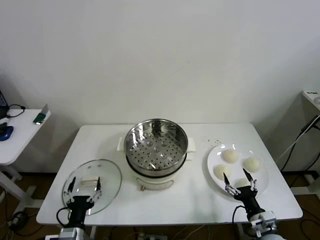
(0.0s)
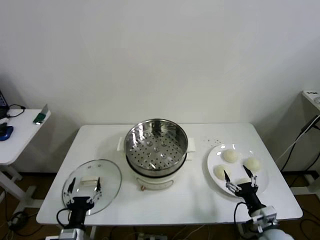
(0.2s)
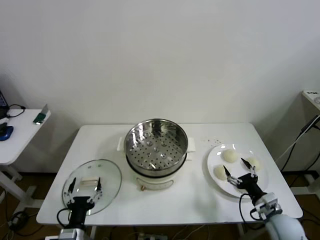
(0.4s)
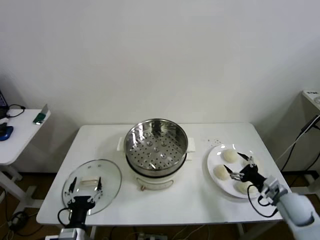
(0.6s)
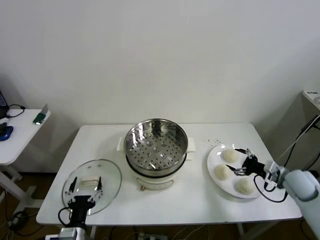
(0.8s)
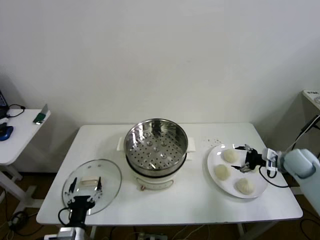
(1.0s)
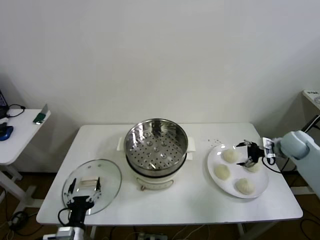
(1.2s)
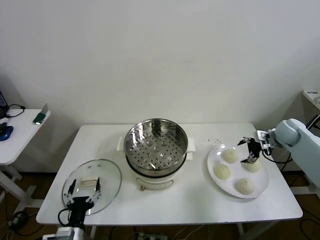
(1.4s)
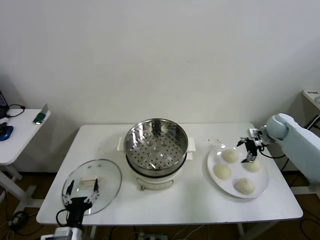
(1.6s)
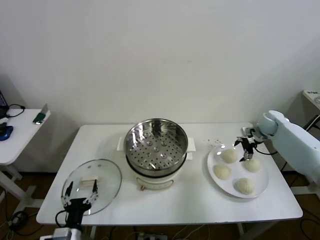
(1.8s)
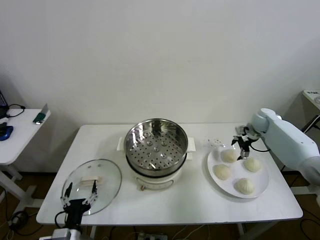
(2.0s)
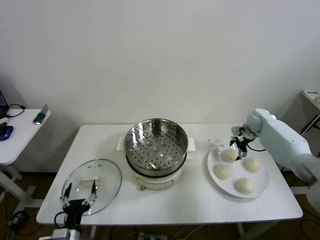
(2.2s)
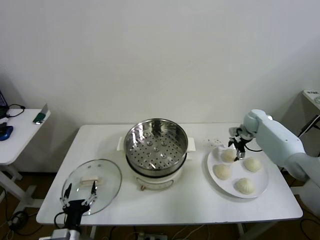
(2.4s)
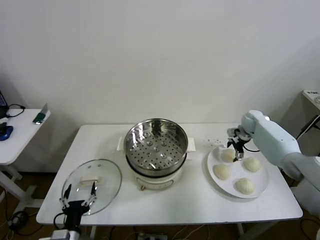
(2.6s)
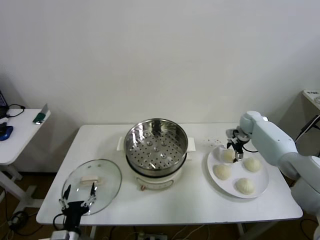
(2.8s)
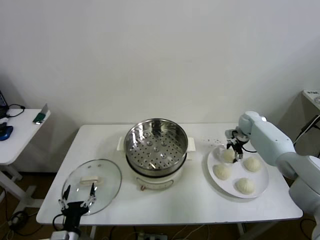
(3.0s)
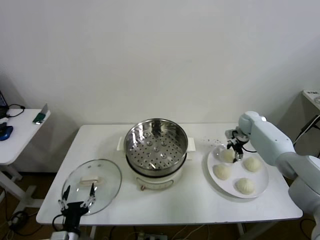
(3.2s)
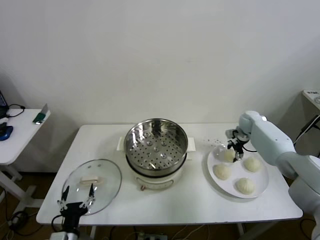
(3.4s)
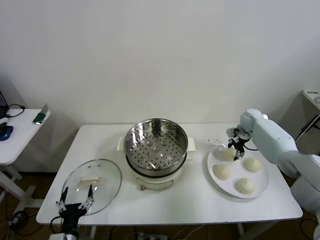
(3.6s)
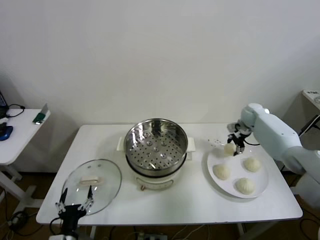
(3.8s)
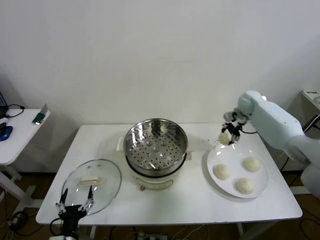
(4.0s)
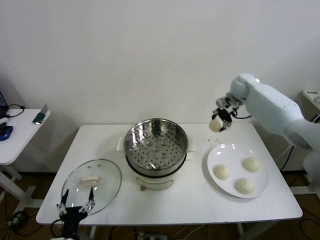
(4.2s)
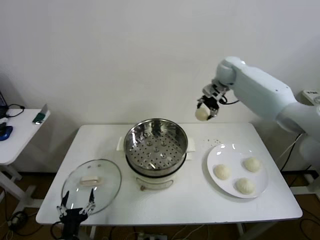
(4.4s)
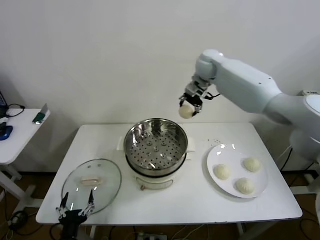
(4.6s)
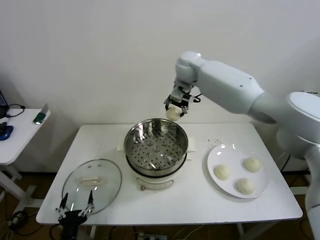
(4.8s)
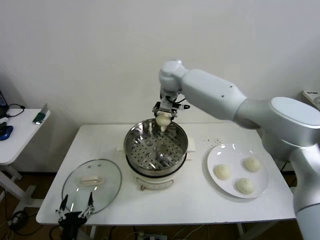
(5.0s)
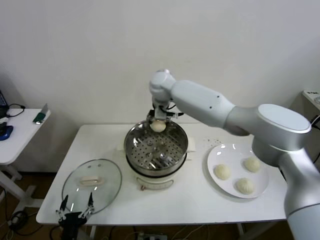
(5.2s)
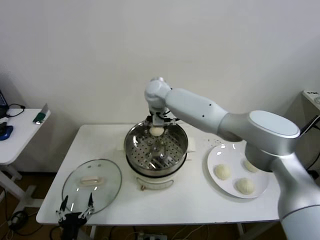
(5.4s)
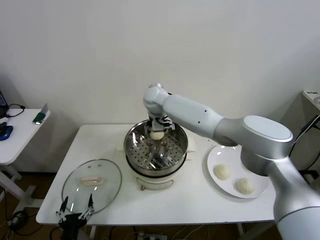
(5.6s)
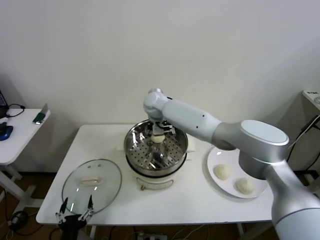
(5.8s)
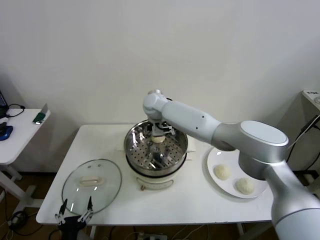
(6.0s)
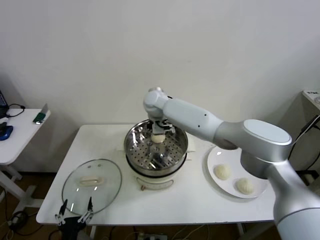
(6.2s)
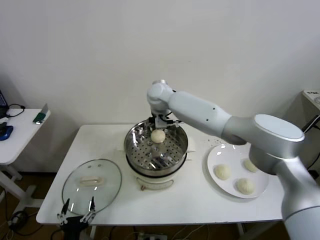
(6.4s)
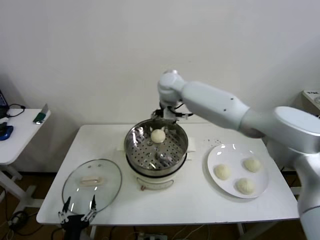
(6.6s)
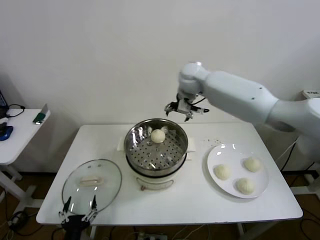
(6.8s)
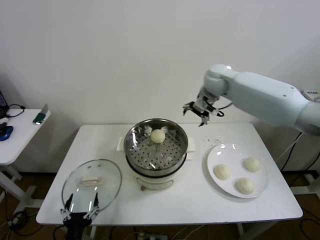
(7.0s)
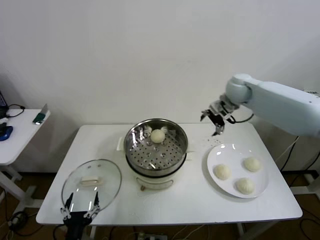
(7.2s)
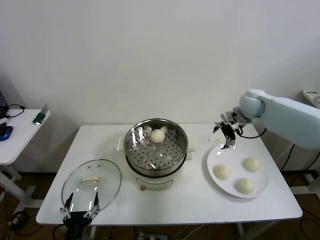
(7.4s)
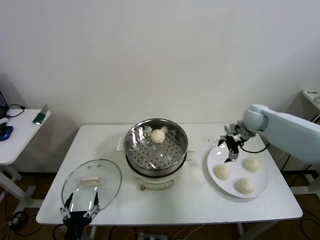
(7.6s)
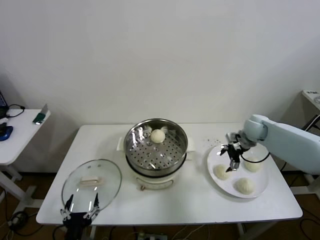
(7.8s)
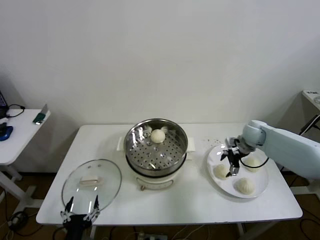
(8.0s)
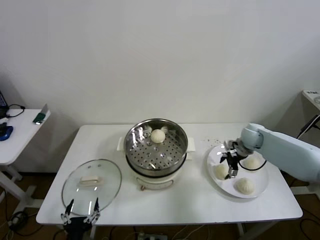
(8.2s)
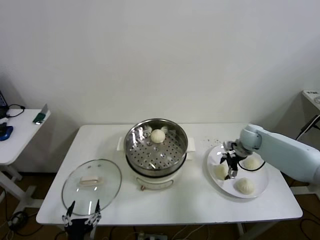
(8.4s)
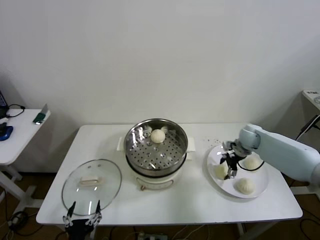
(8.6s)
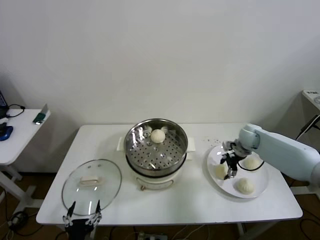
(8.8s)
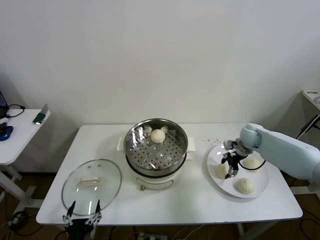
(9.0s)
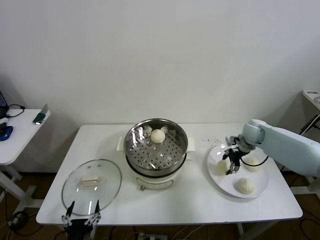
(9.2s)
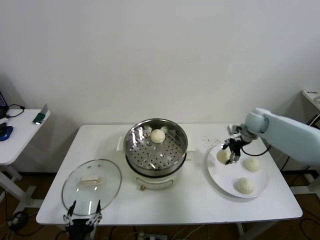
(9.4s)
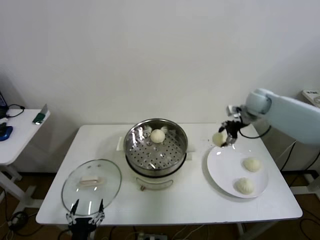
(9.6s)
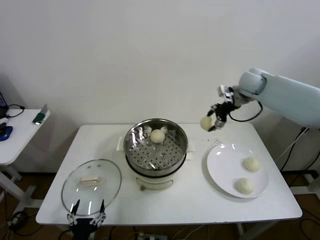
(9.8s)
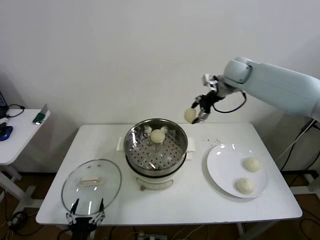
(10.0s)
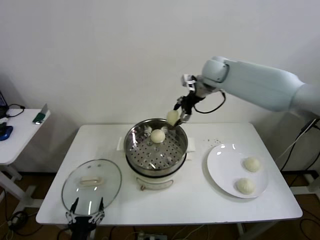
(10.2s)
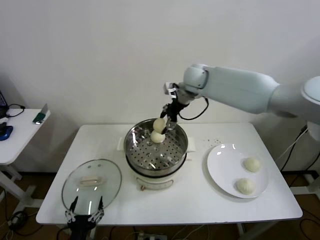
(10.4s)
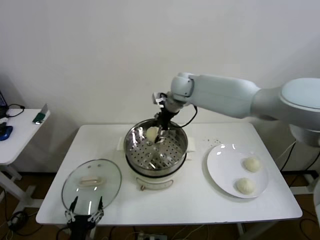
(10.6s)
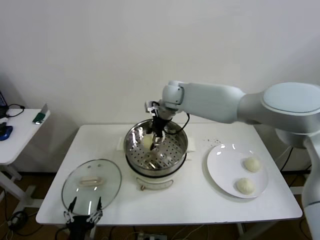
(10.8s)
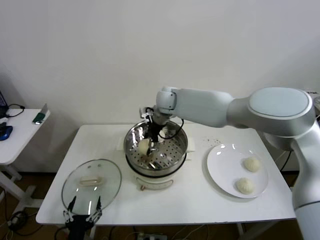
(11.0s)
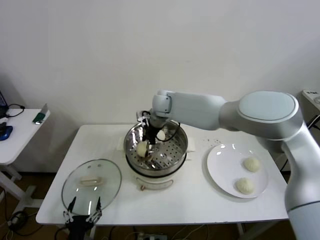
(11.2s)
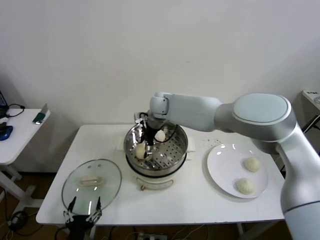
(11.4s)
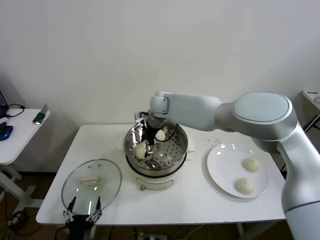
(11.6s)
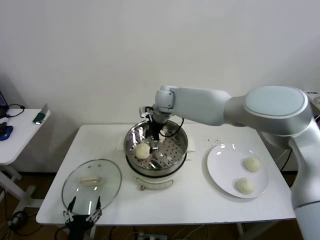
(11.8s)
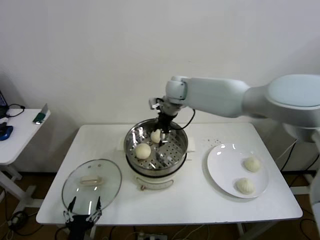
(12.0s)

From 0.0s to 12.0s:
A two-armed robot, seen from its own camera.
Step, from 0.0s to 3.2s: Grasp the baozi in the plate with right gripper.
Step, from 3.6s to 6.2s: Place the baozi on the steamer with right gripper.
Step, from 6.4s to 9.0s: Grasp the baozi in the plate with right gripper.
Step, from 9.2s to 11.8s: Place the baozi on the steamer with right gripper.
From 1.6s to 3.0s: The right gripper goes roughly 10 cm to the left and forward.
From 3.0s to 4.4s: The right gripper travels upward and to the left by some 30 cm, and closes up.
From 4.4s to 6.0s: The right gripper heads to the left and downward, covering approximately 25 cm, and opens its fingers.
From 6.0s to 7.6s: The right gripper goes approximately 40 cm to the right.
From 7.6s to 9.0s: The right gripper shifts about 5 cm downward, and closes its fingers.
From 9.0s to 10.4s: The right gripper is displaced to the left and upward by some 35 cm.
From 10.4s to 12.0s: The right gripper reaches approximately 10 cm to the left, then returns, and opens up.

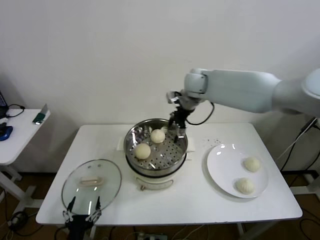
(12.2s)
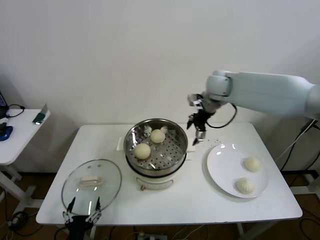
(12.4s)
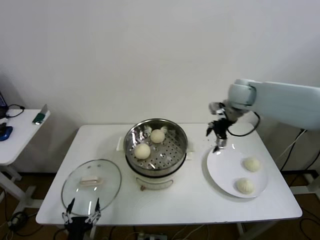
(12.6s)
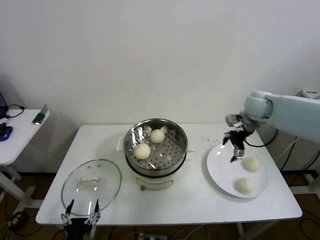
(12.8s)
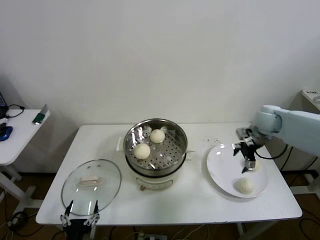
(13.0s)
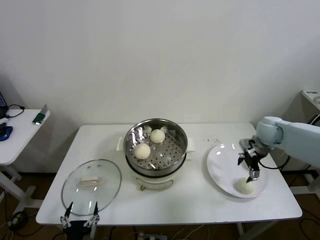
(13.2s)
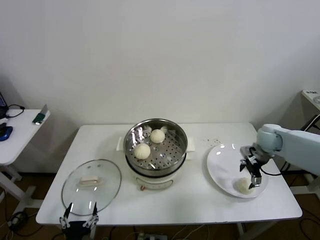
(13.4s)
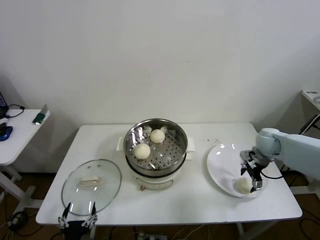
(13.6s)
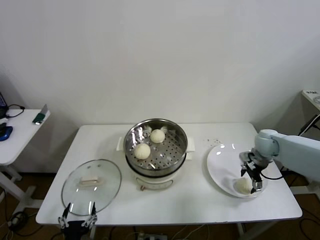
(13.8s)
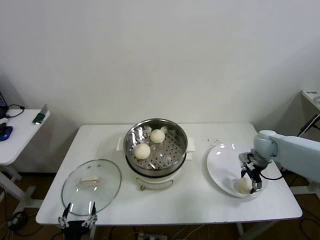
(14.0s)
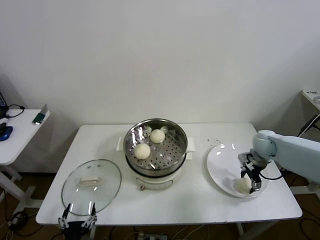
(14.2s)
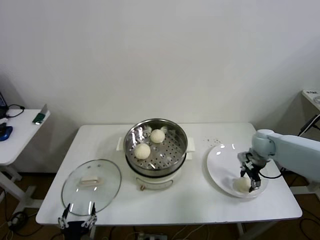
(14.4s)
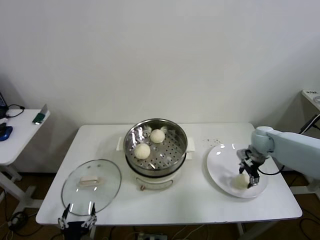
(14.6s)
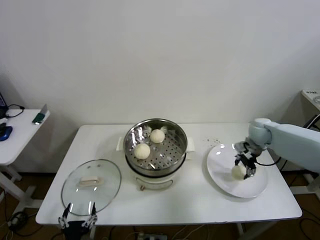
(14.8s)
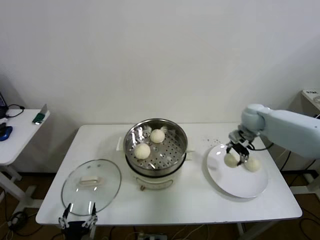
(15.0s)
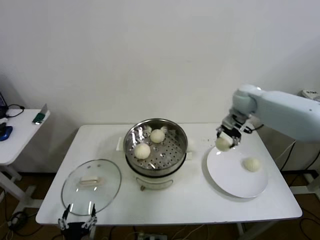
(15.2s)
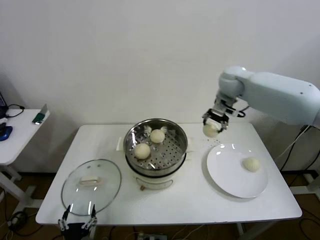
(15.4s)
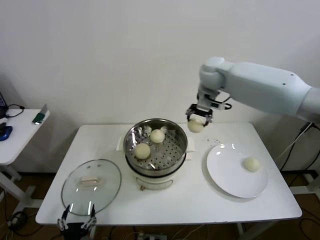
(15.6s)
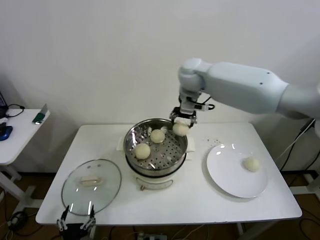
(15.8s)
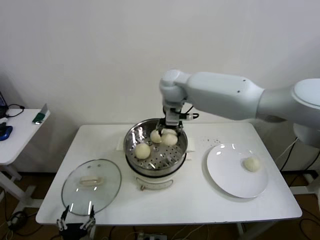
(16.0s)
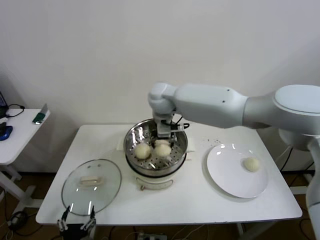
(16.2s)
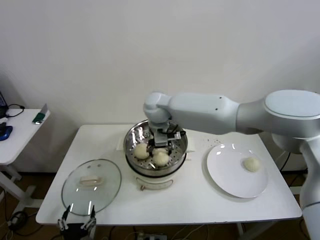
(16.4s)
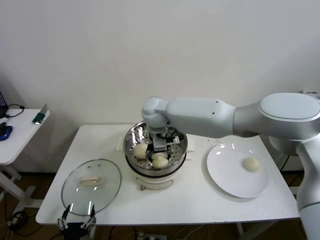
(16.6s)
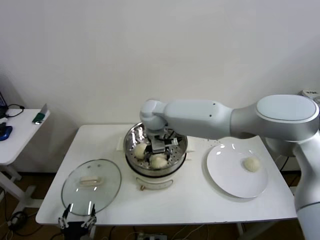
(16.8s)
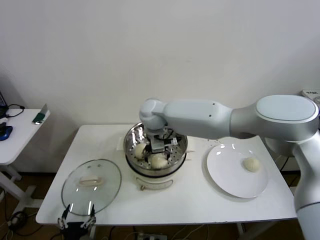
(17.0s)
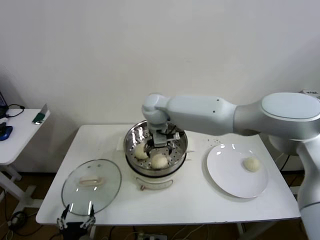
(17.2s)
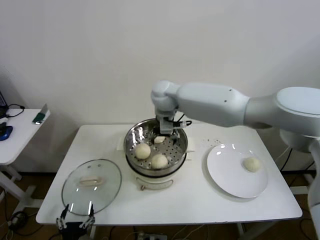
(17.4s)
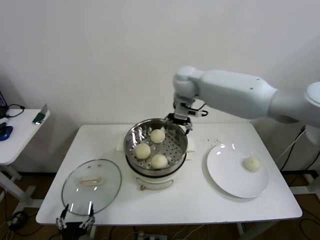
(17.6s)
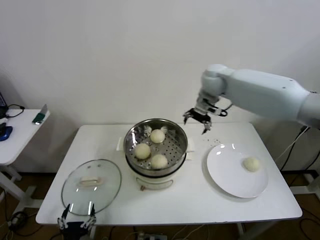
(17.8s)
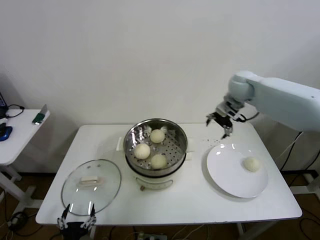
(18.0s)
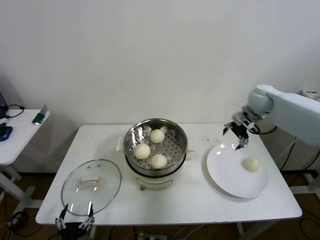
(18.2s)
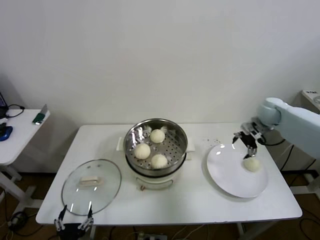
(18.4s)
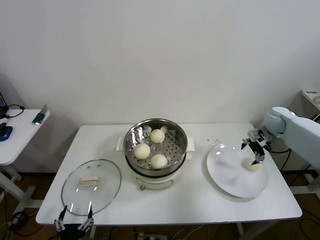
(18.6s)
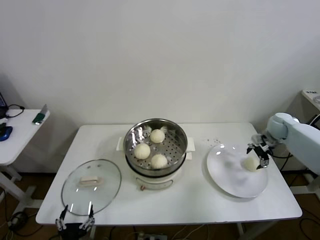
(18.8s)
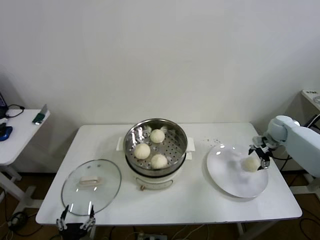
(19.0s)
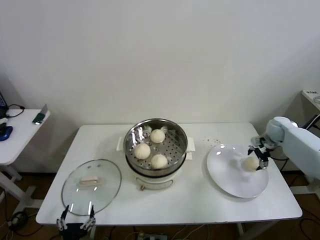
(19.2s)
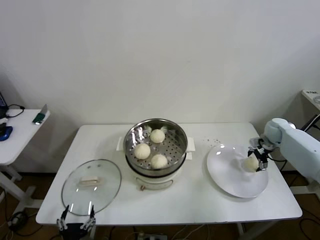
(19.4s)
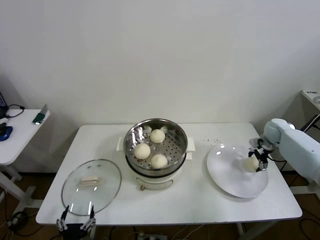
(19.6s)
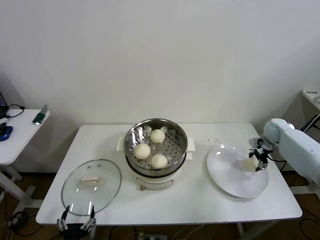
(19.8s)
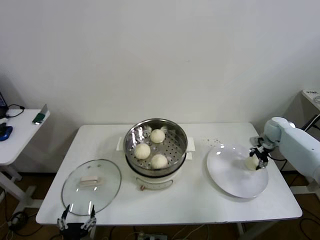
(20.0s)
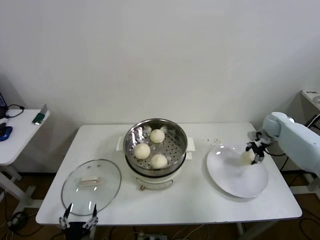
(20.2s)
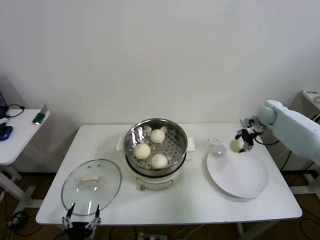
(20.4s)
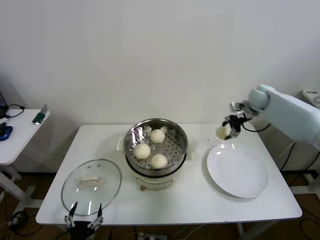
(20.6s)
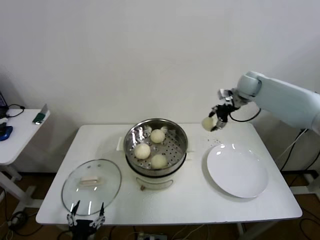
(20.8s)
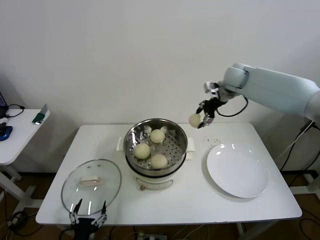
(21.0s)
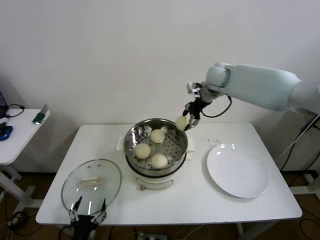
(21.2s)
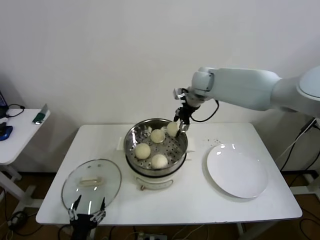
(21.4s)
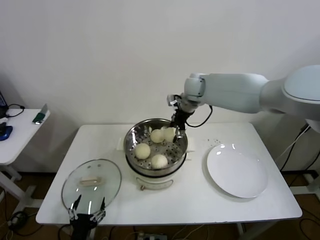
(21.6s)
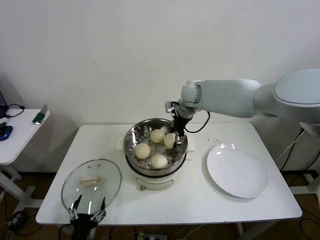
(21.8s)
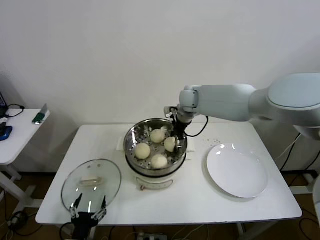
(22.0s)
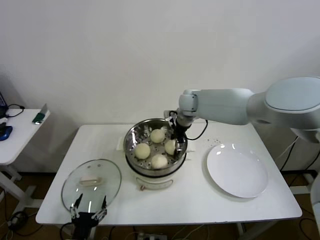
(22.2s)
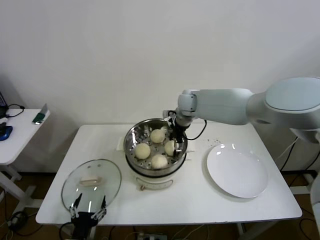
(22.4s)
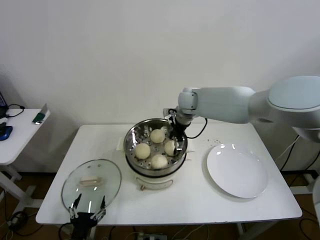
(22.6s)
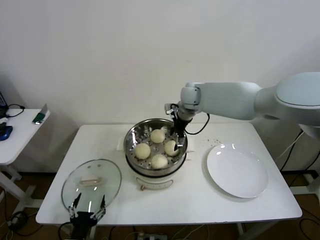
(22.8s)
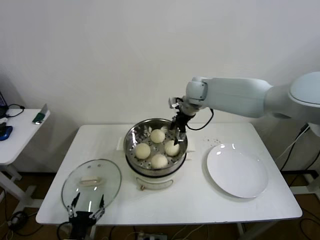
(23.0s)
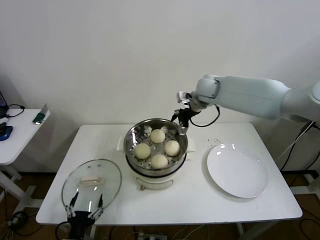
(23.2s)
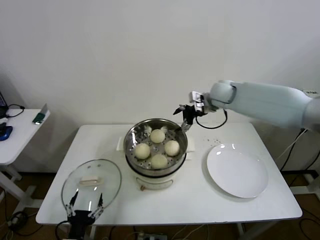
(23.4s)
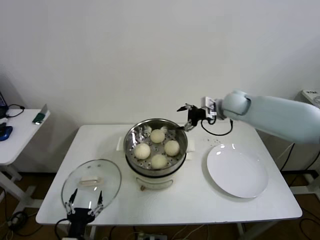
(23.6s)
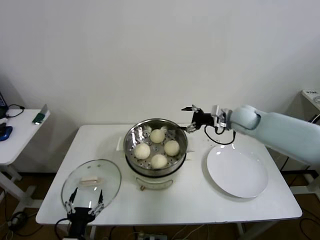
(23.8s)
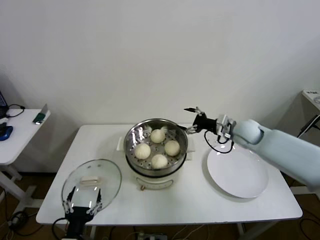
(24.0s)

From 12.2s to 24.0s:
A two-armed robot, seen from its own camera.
Step, from 12.2s to 14.4s: Grasp the baozi in the plate with right gripper.
Step, from 14.6s to 17.2s: Place the baozi on the steamer with right gripper.
Step, from 17.6s to 19.8s: Grasp the baozi in the plate with right gripper.
Step, from 20.0s to 22.8s: Place the baozi on the steamer with right gripper.
From 12.2s to 13.6s: The right gripper travels to the right and downward by approximately 30 cm.
From 13.6s to 15.2s: The right gripper goes approximately 20 cm upward, to the left and forward, and closes its fingers.
From 15.2s to 16.6s: The right gripper moves to the left, roughly 30 cm.
From 16.6s to 18.2s: The right gripper is displaced to the right by approximately 40 cm, and opens its fingers.
From 18.2s to 19.6s: The right gripper shifts some 20 cm downward and to the right.
From 19.6s to 21.0s: The right gripper heads upward and to the left, covering some 30 cm, and closes up.
From 21.0s to 22.6s: The right gripper is displaced to the left and downward by roughly 15 cm, and opens its fingers.
From 22.6s to 24.0s: The right gripper goes roughly 25 cm to the right, backward and downward.
